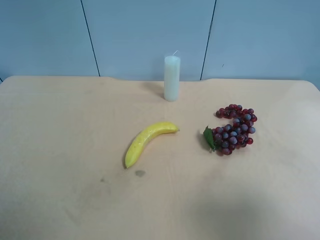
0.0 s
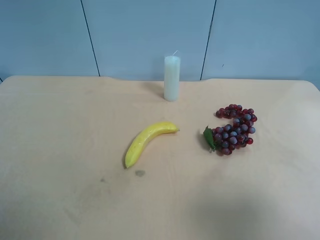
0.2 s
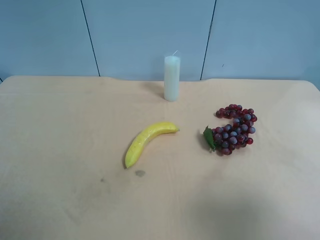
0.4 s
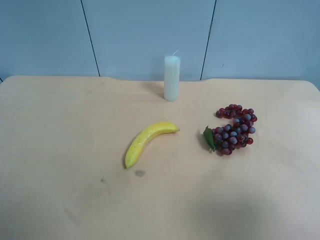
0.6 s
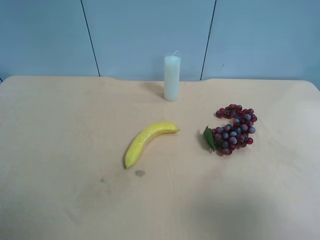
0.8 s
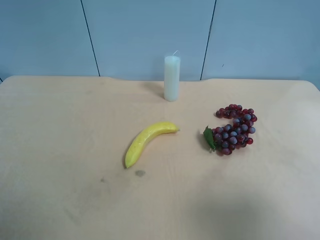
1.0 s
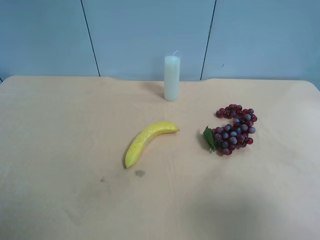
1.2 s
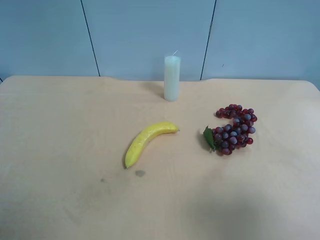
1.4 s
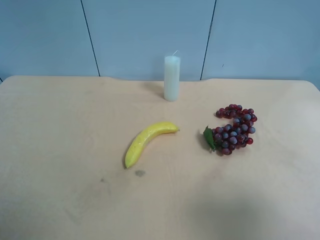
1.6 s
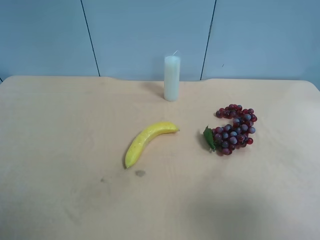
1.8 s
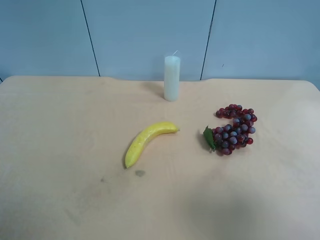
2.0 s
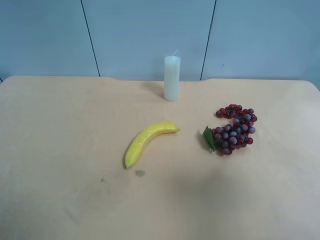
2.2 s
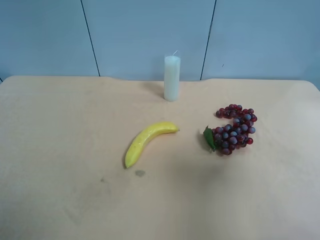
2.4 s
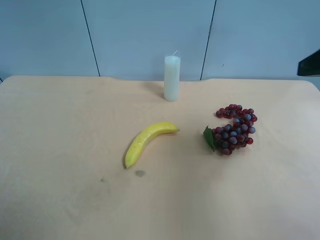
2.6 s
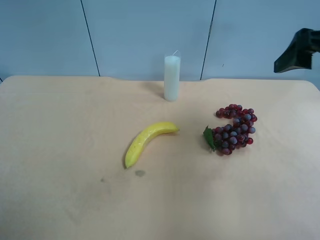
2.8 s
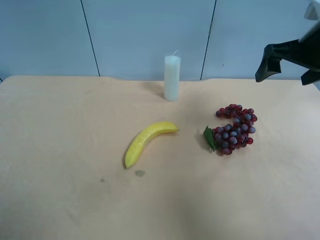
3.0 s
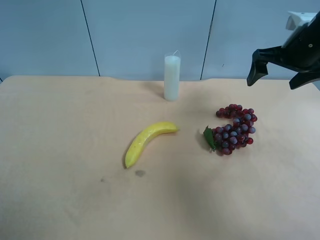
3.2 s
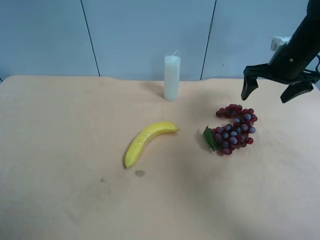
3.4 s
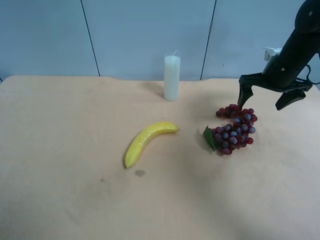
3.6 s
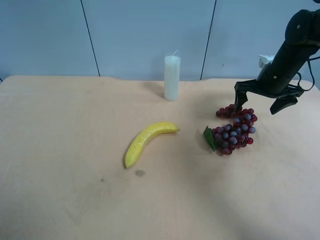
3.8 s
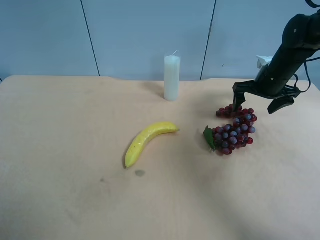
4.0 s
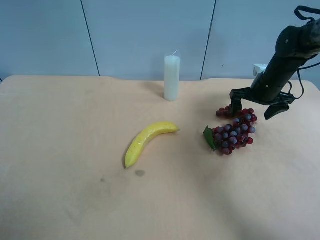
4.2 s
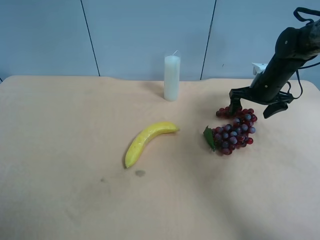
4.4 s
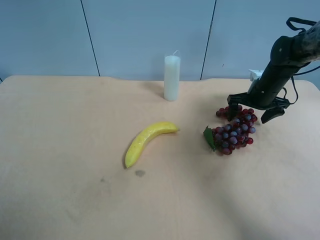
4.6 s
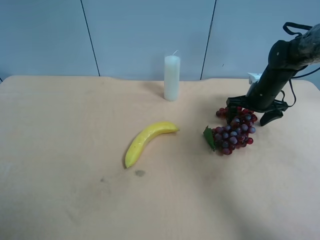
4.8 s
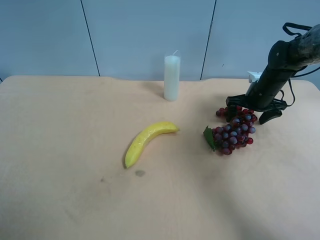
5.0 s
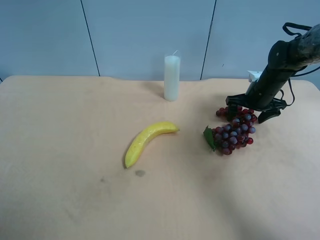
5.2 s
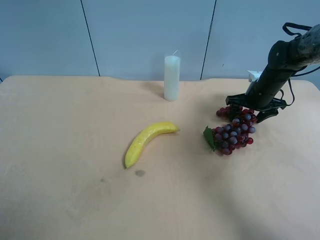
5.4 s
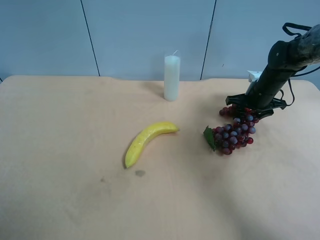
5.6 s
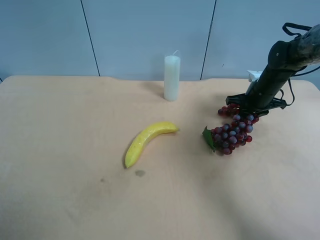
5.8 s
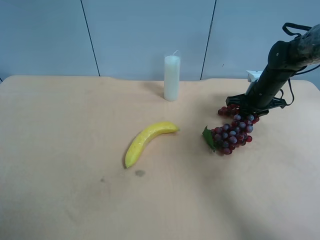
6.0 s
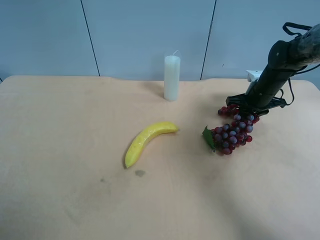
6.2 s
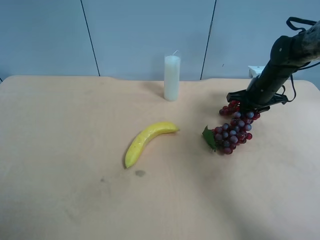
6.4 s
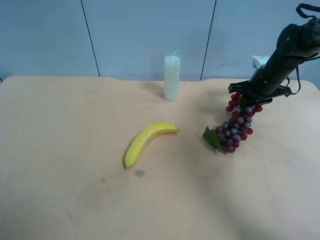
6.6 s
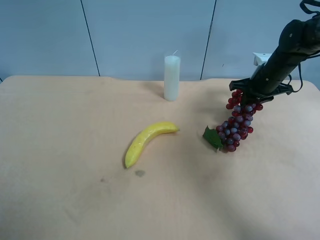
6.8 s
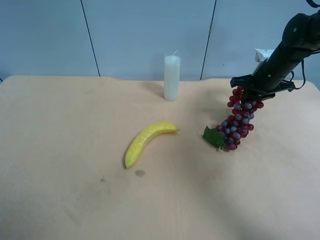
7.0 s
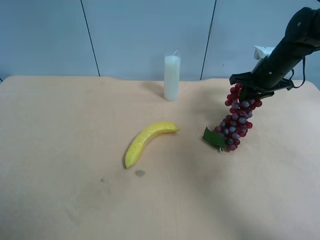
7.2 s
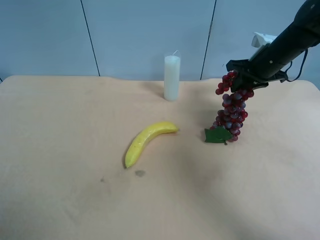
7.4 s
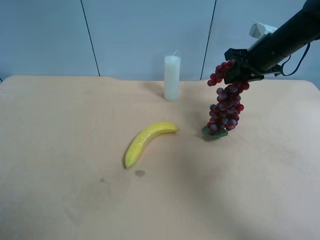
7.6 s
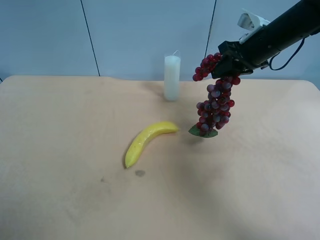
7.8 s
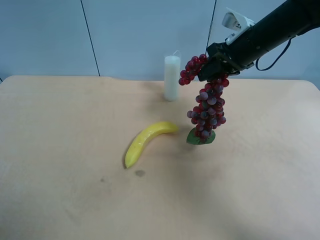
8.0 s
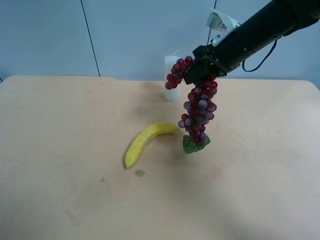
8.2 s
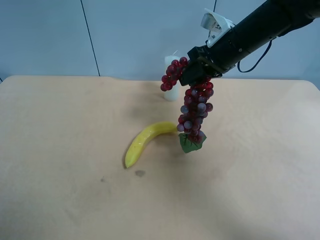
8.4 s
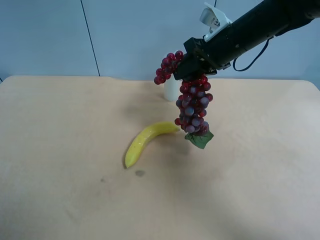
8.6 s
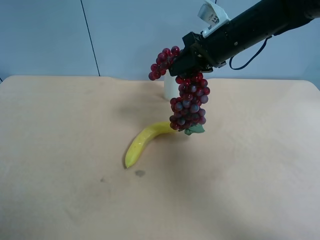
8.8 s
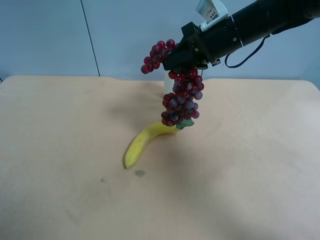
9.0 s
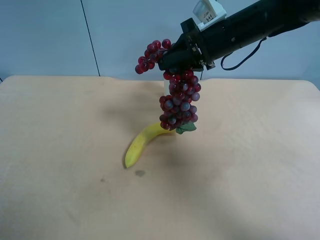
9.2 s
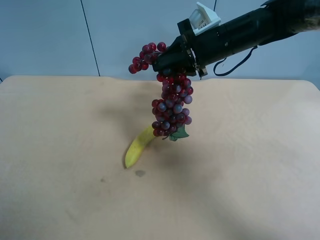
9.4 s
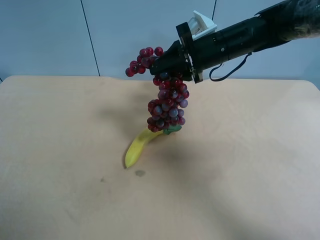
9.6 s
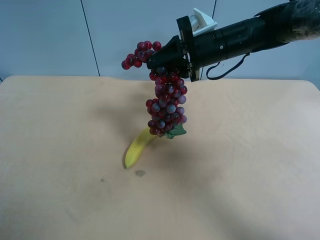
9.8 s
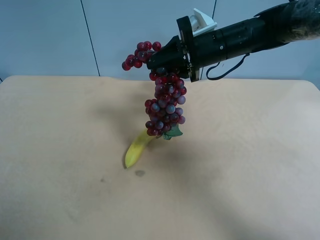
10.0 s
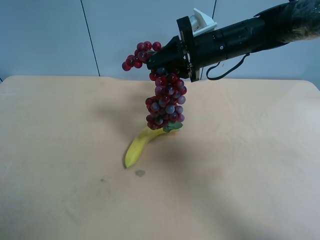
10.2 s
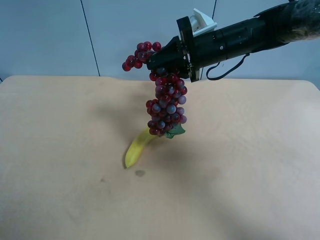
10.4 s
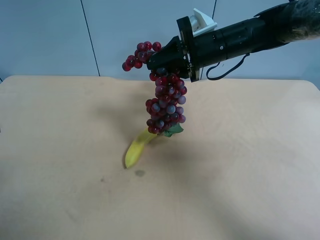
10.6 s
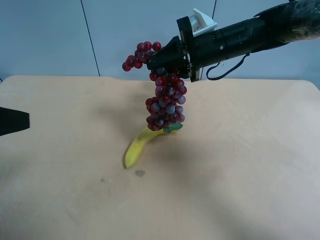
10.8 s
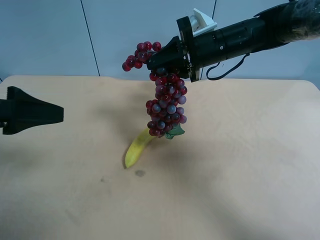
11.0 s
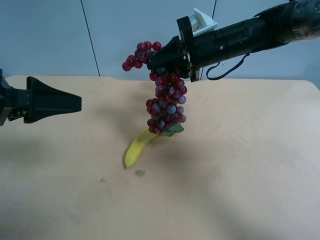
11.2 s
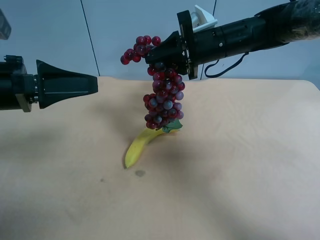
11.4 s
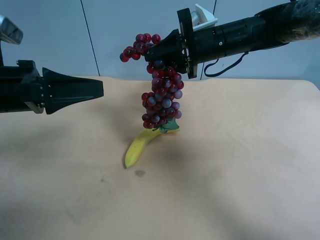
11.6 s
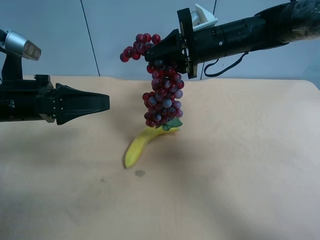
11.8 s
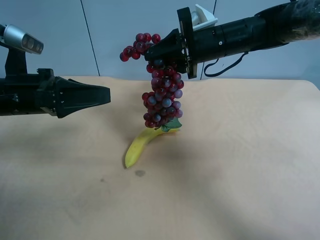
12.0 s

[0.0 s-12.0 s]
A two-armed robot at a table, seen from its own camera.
Task of the whole recording: use the right gripper to pick up the item and transfer it from the right gripper to the left gripper.
0.0 to 1.6 s: Both grippers stay about where they are.
1.6 to 3.0 s: The right gripper goes approximately 30 cm forward.
3.0 to 4.4 s: The right gripper heads downward and forward, covering some 15 cm.
4.4 to 6.0 s: The right gripper closes up.
6.0 to 7.6 s: The right gripper goes approximately 10 cm upward.
7.6 to 9.0 s: The right gripper shifts roughly 10 cm to the left.
10.4 to 12.0 s: The left gripper shifts approximately 25 cm forward and downward.

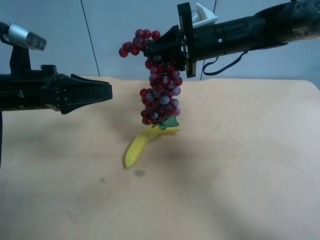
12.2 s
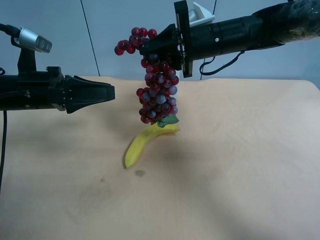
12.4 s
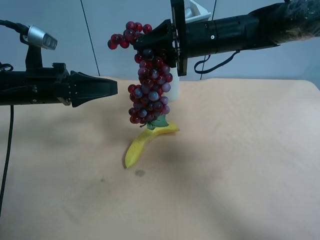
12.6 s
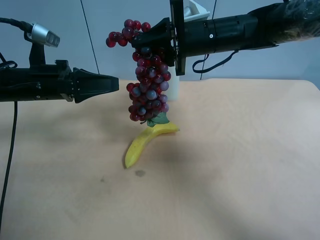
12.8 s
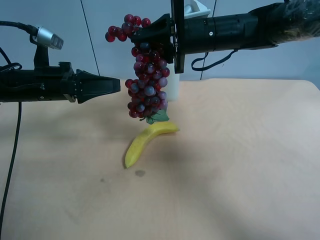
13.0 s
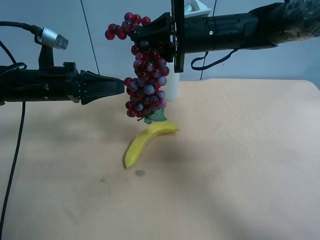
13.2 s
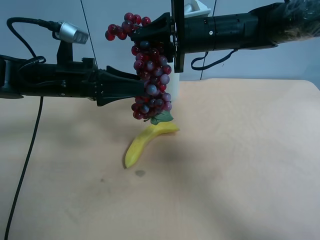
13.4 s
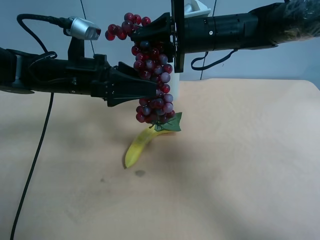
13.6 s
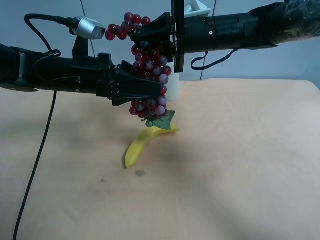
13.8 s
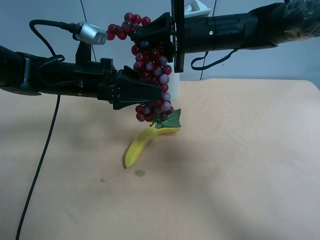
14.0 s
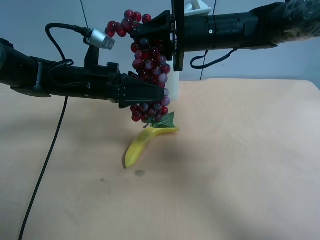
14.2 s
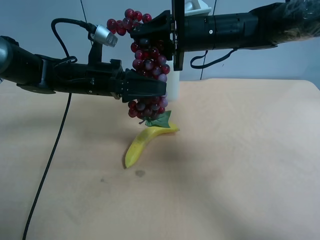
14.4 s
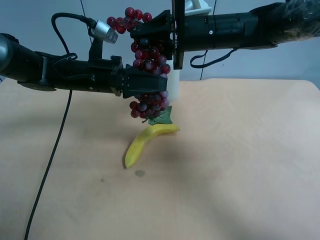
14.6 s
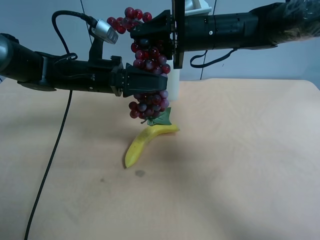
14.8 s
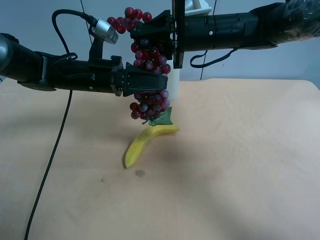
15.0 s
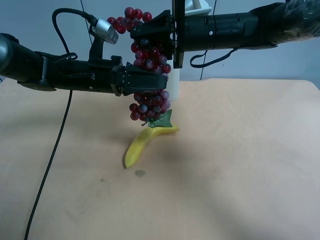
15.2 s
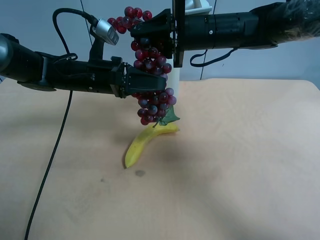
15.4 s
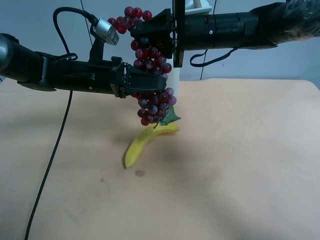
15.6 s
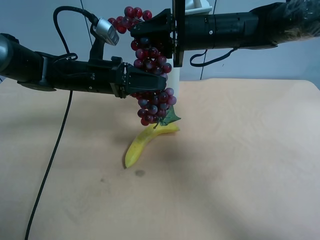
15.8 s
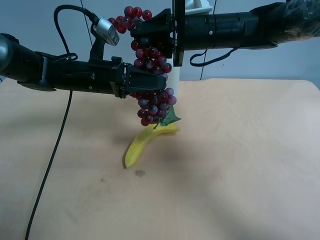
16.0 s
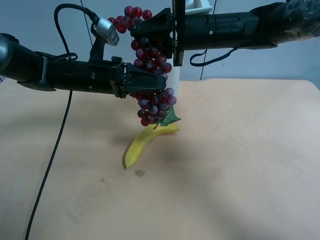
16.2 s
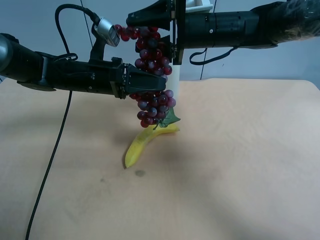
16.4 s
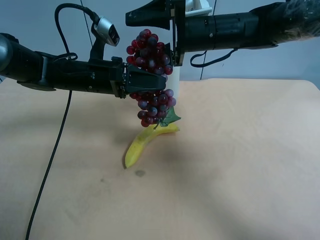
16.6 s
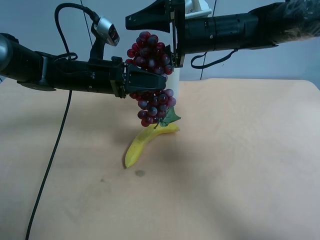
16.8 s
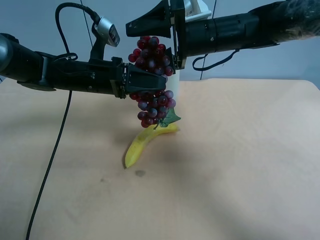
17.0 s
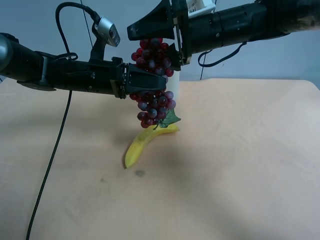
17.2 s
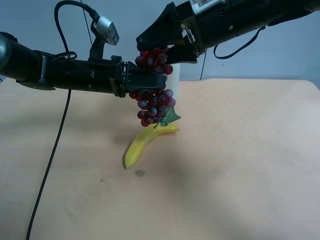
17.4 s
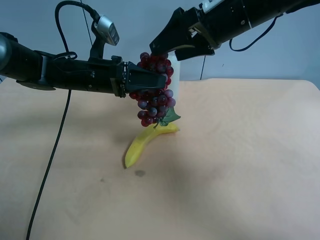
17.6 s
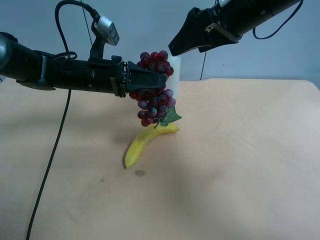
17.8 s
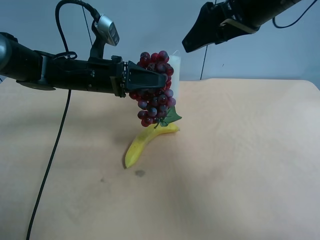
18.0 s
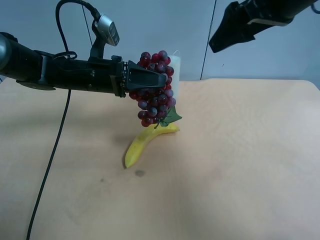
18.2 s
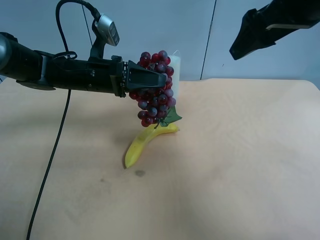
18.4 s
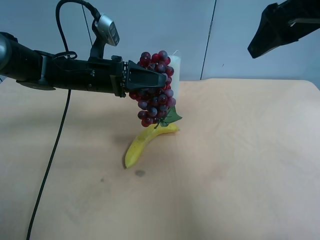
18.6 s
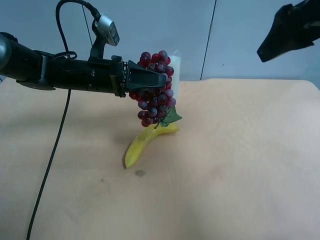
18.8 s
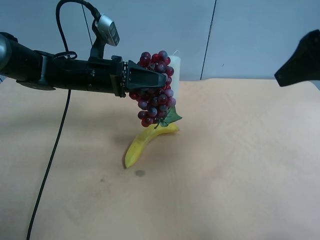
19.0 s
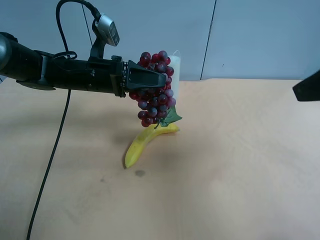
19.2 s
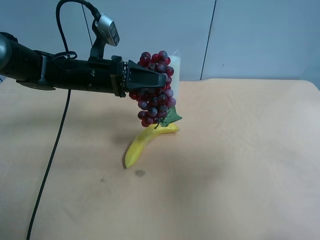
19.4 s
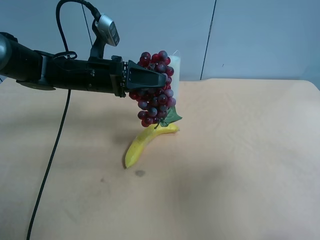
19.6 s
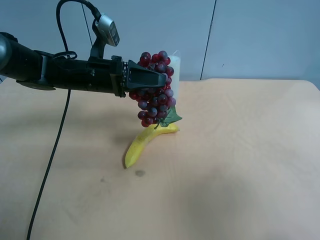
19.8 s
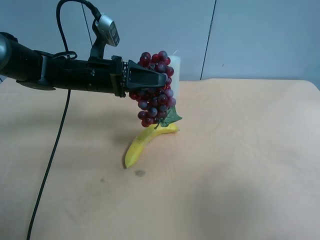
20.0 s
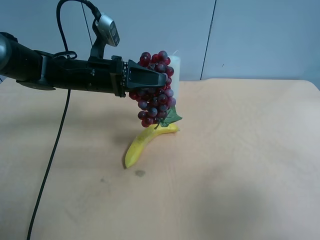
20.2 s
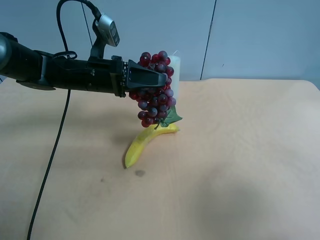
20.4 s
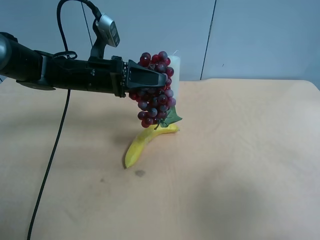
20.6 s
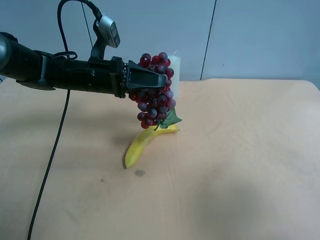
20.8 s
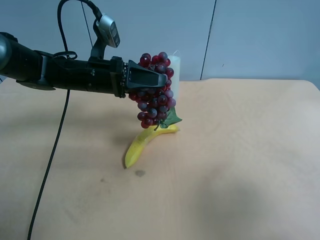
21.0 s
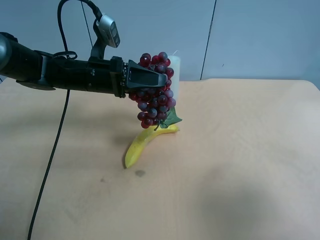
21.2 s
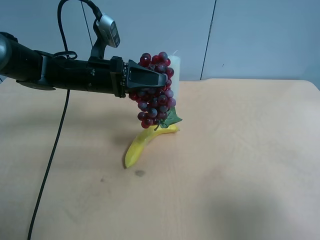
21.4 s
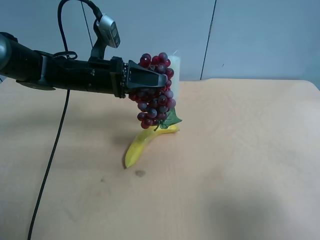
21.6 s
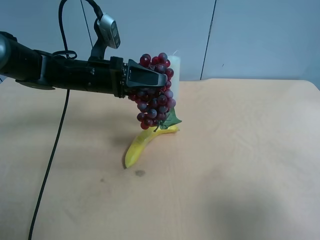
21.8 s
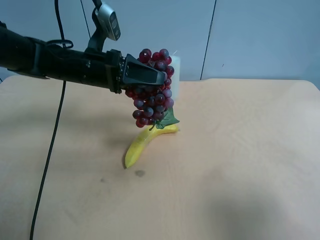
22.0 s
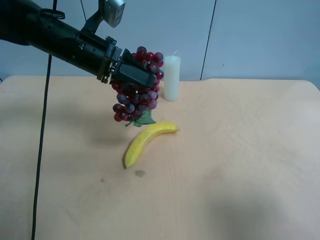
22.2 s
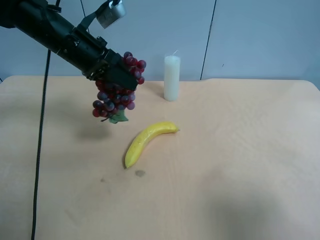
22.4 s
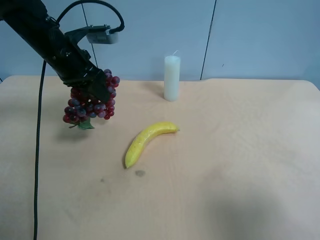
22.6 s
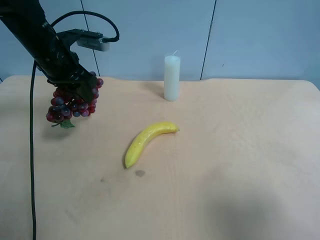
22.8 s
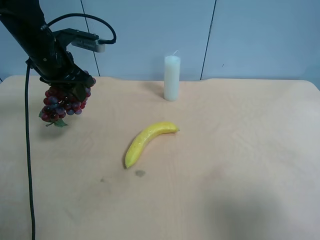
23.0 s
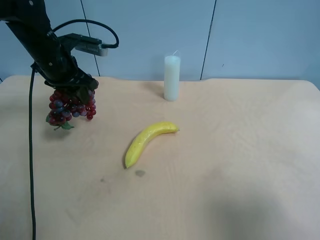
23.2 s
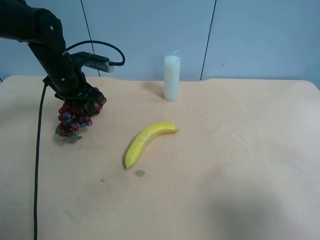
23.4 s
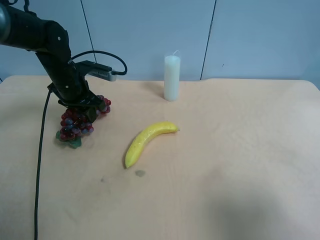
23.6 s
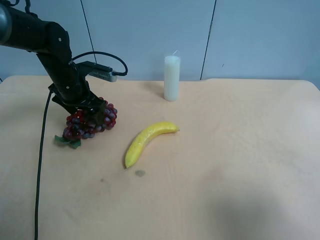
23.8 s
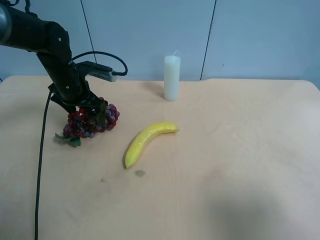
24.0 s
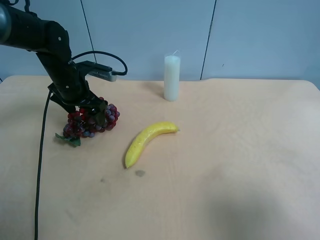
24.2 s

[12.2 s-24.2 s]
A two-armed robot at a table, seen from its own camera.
Task of the whole recording: use the right gripper to pick up the item and transfer it from the right gripper to the left gripper.
12.2 to 13.8 s: The left gripper moves to the right, approximately 10 cm.
13.8 to 15.2 s: The left gripper closes up.
15.2 to 16.6 s: The left gripper closes; the right gripper opens up.
16.6 to 18.2 s: The right gripper shifts approximately 15 cm upward, to the right and backward.
18.2 to 19.8 s: The right gripper shifts roughly 25 cm backward.
19.8 to 21.2 s: There are only small adjustments of the grippers.
21.2 to 22.6 s: The left gripper moves upward and to the left, approximately 10 cm.
22.6 to 24.2 s: The left gripper moves downward, about 10 cm, and opens.
